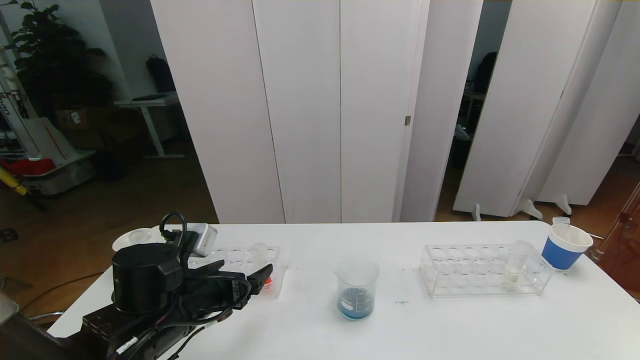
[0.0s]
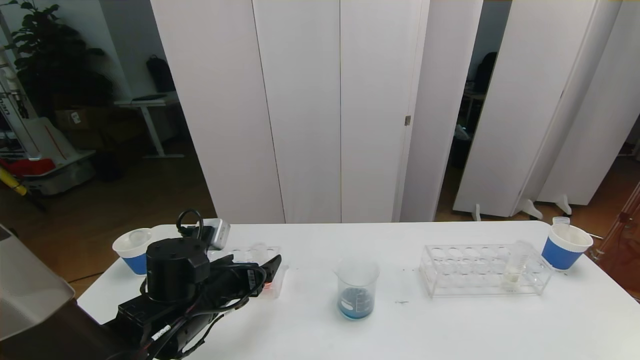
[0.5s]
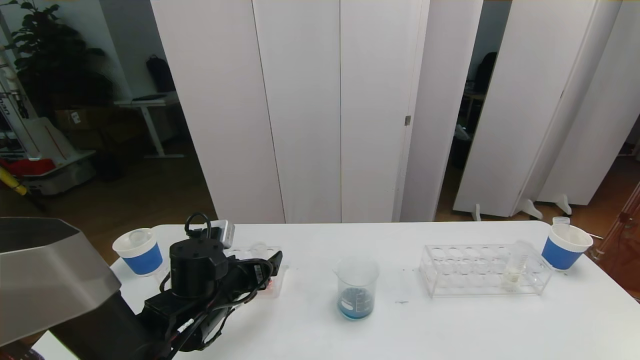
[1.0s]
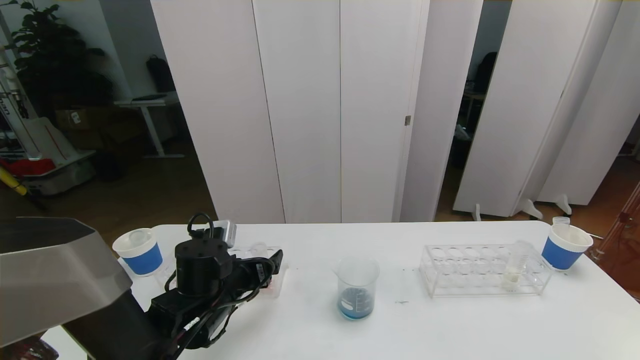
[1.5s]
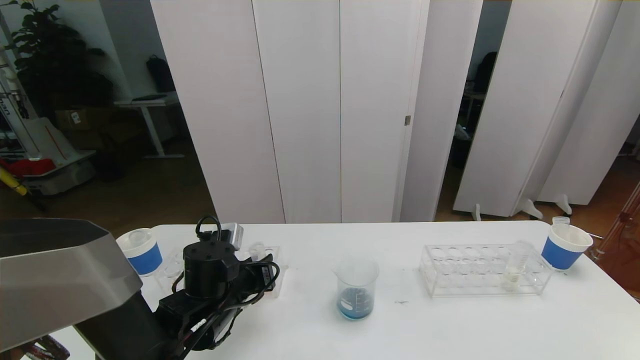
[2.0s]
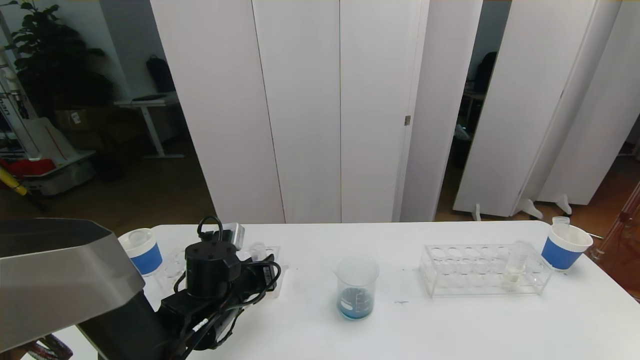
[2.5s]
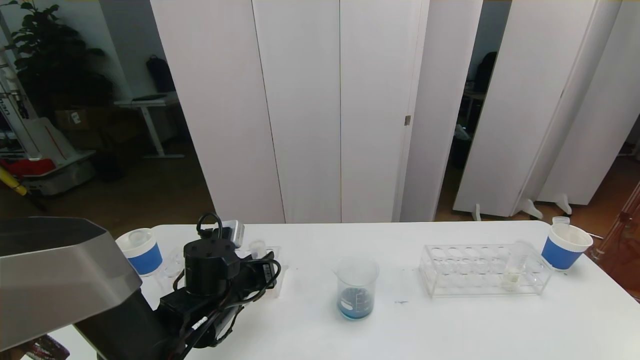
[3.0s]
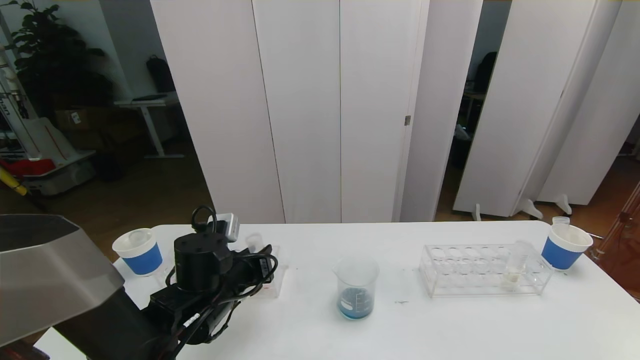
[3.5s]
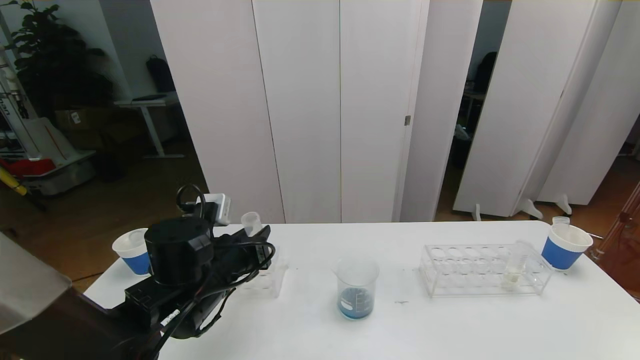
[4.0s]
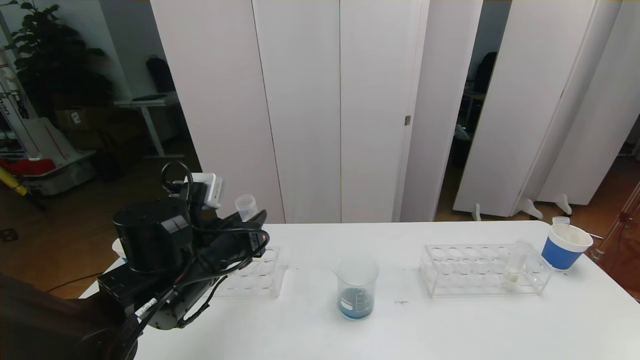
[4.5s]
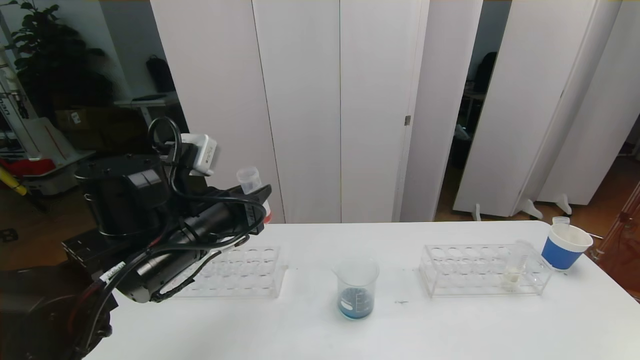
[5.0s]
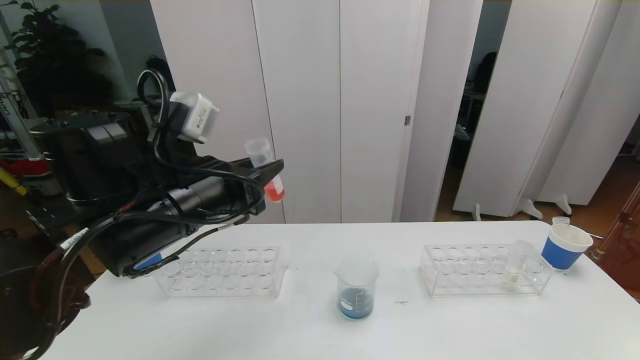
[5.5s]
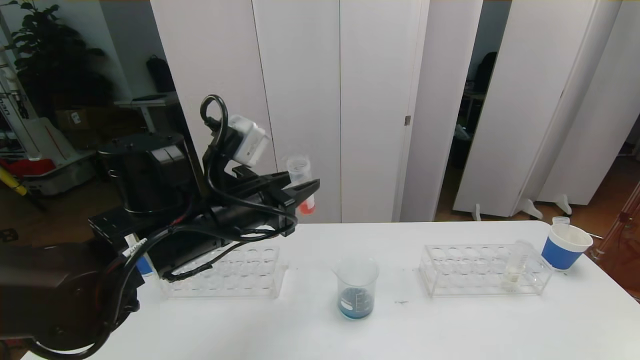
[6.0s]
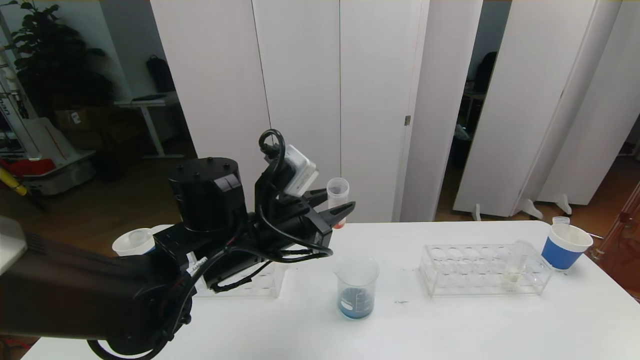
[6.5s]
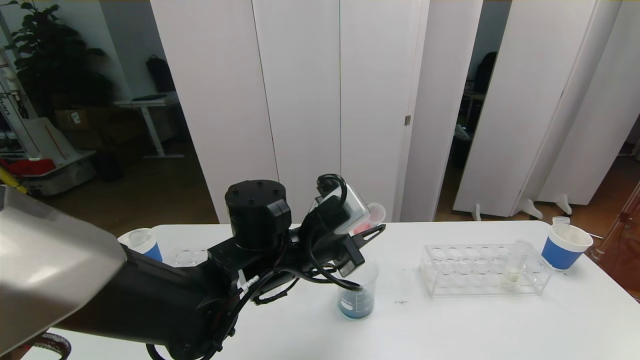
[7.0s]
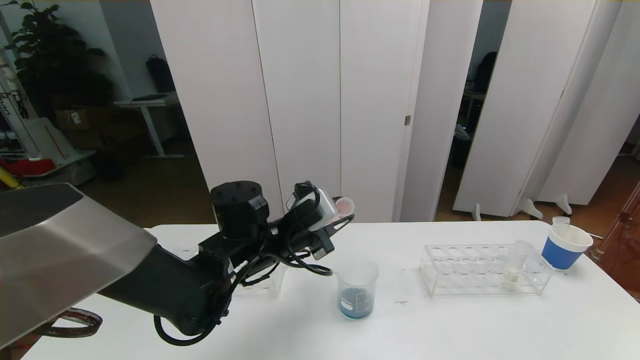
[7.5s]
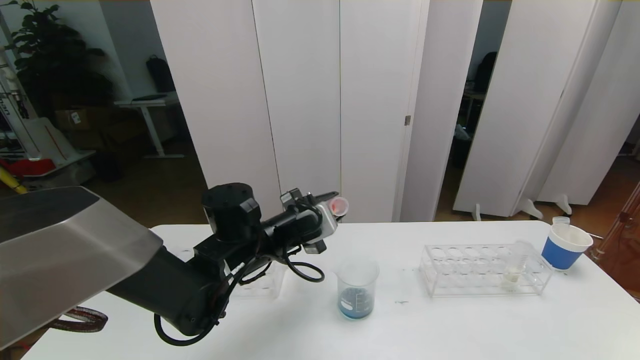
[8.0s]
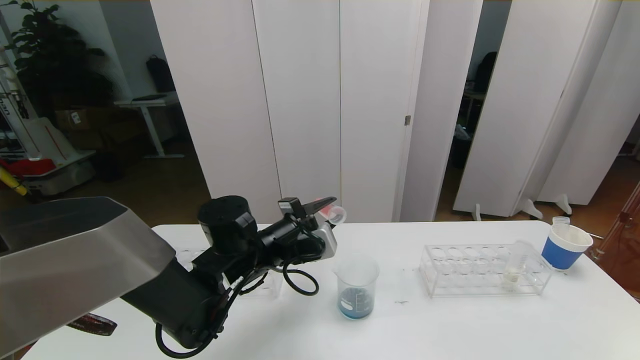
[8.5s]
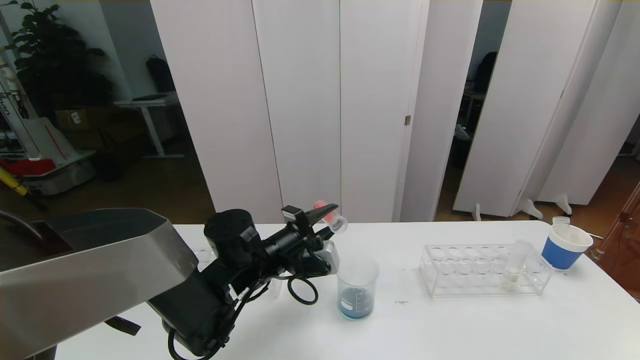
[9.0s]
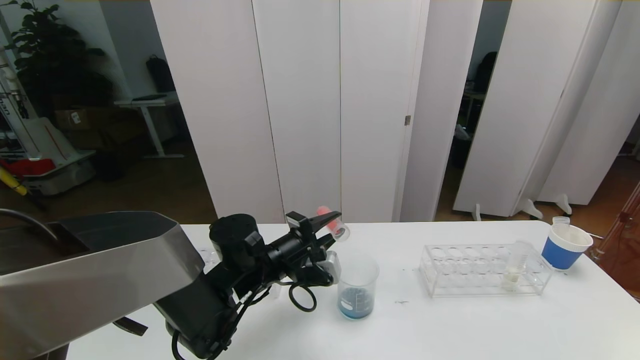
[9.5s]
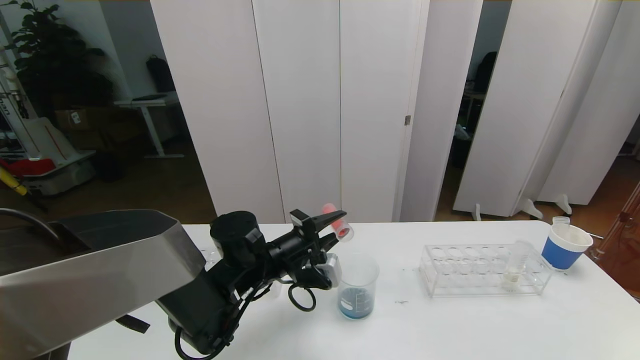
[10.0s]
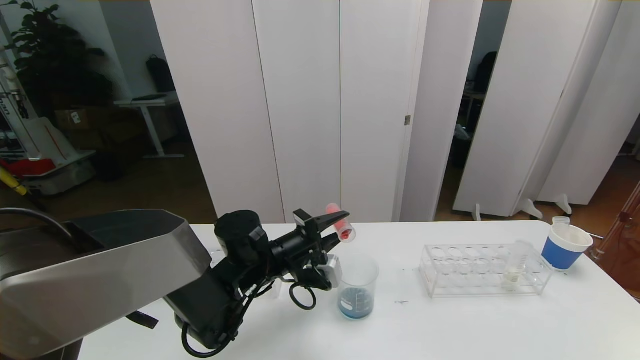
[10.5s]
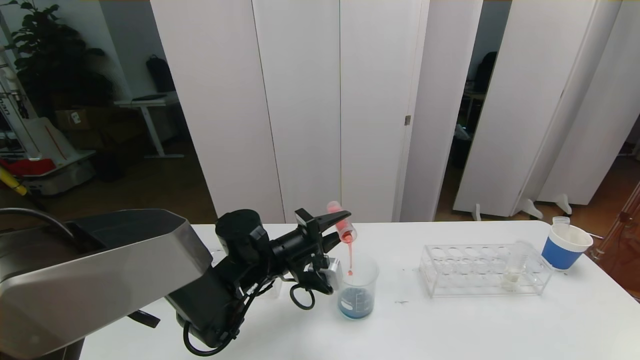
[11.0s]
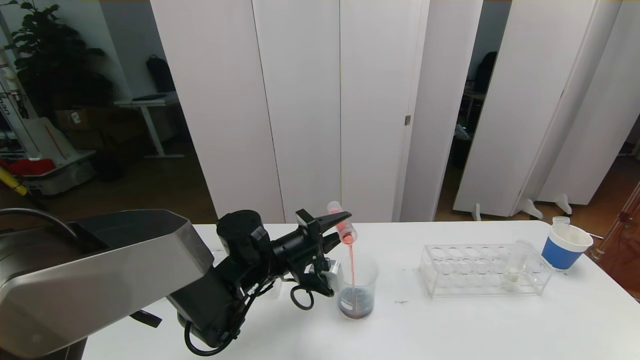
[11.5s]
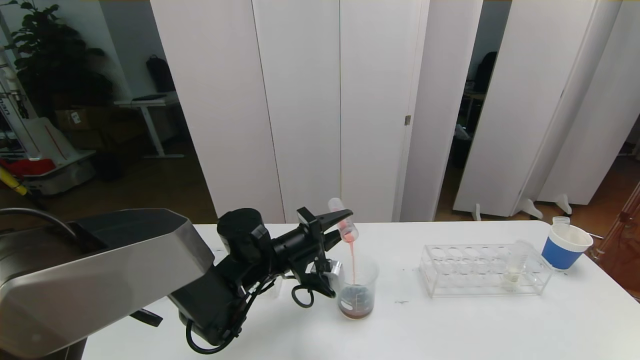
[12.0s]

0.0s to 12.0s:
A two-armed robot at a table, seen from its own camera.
Task of the whole recording: pick up the test tube with red pigment the test tube with blue pigment and the test tube with white pigment by grippers and pour them into the beaker.
0.0s to 2.0s: The left gripper changes place by some 5 cm, and closes its fingers.
2.0s to 4.0s: The left gripper moves upward, about 5 cm.
4.0s to 6.0s: The left gripper is displaced upward by about 10 cm.
6.0s to 8.0s: The left gripper travels downward and forward by roughly 10 cm.
10.0s to 12.0s: There are only small adjustments of the grippers.

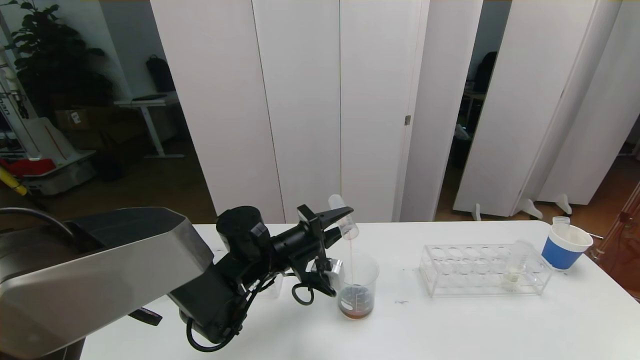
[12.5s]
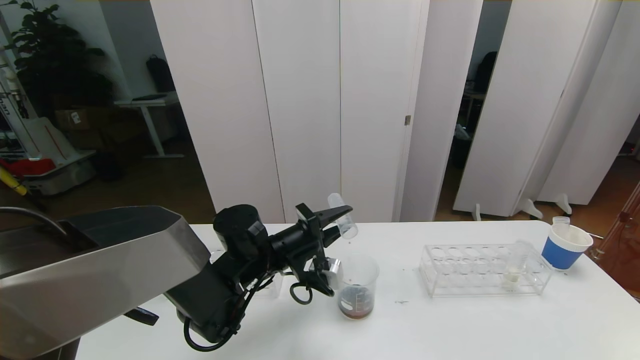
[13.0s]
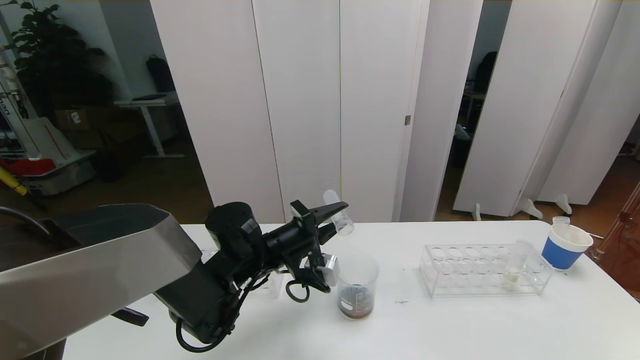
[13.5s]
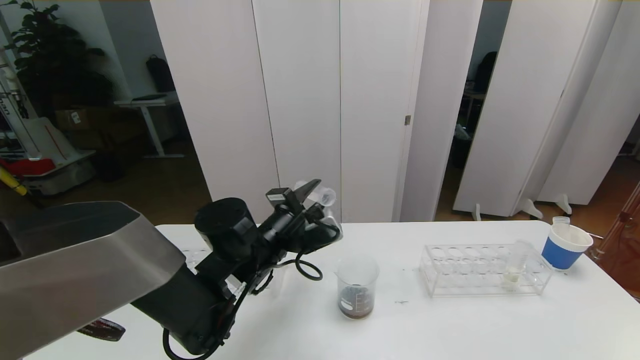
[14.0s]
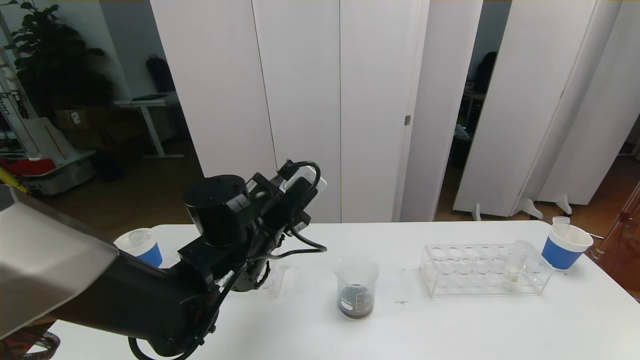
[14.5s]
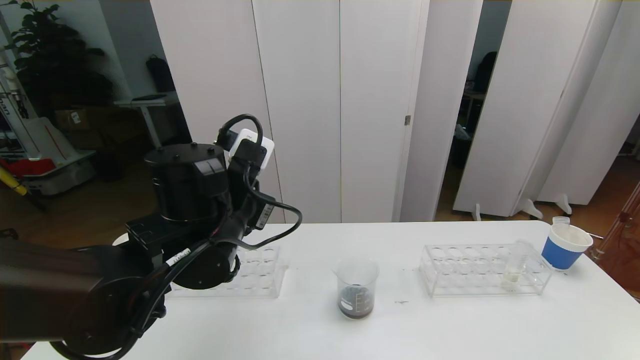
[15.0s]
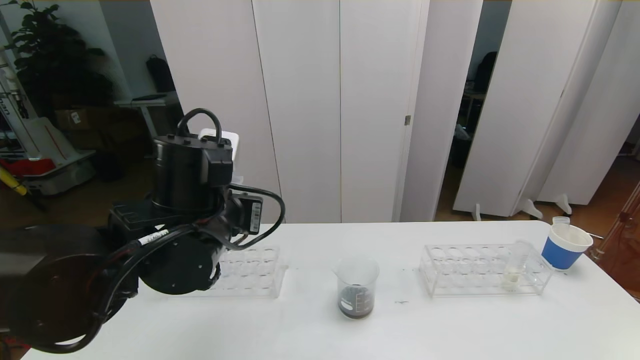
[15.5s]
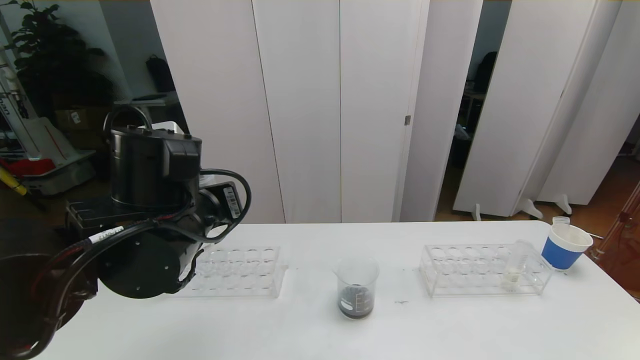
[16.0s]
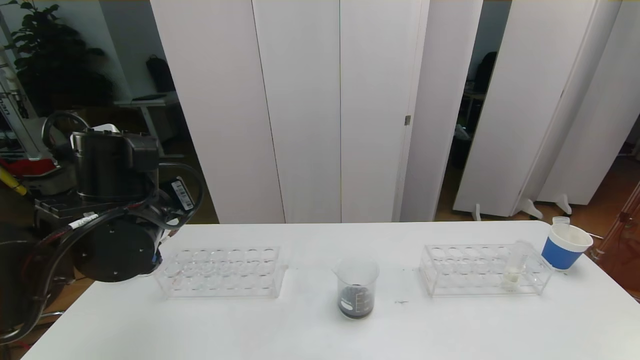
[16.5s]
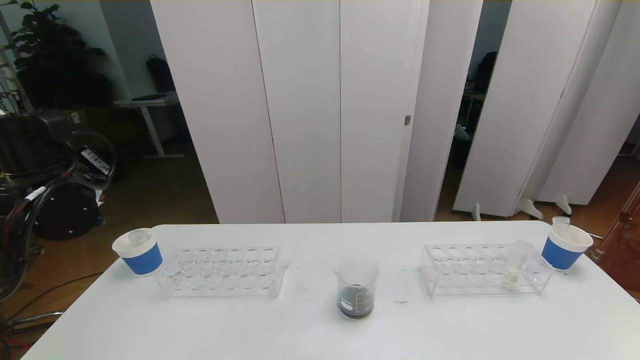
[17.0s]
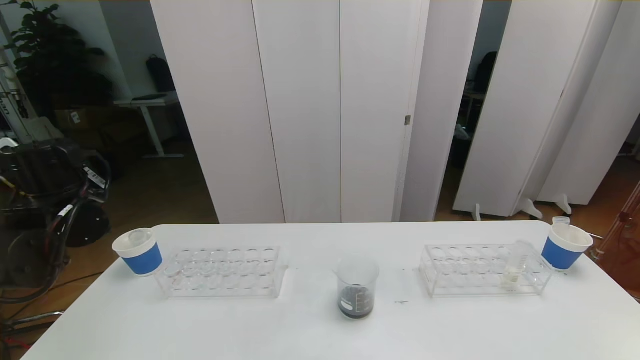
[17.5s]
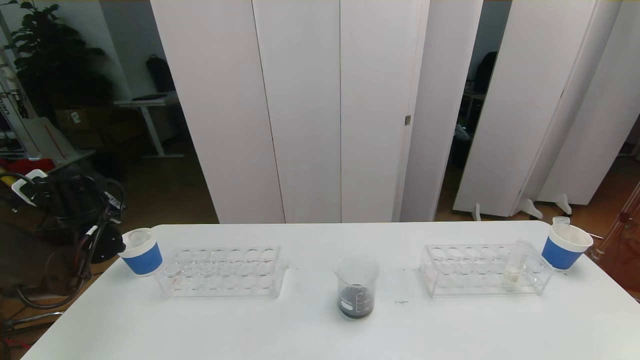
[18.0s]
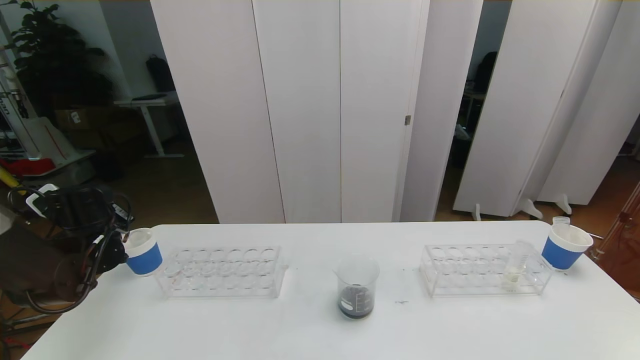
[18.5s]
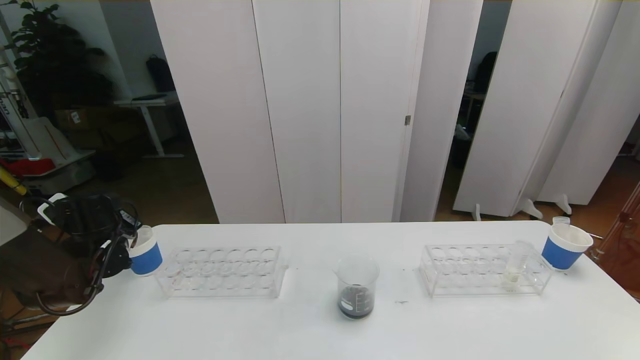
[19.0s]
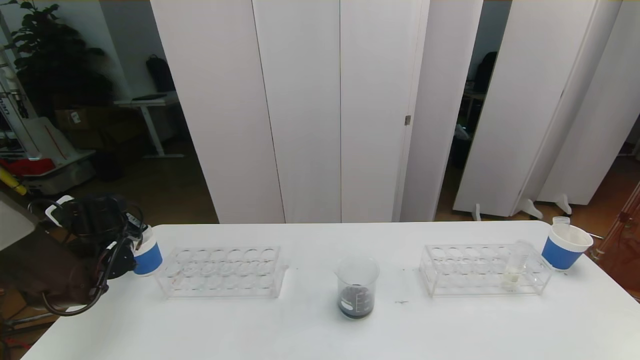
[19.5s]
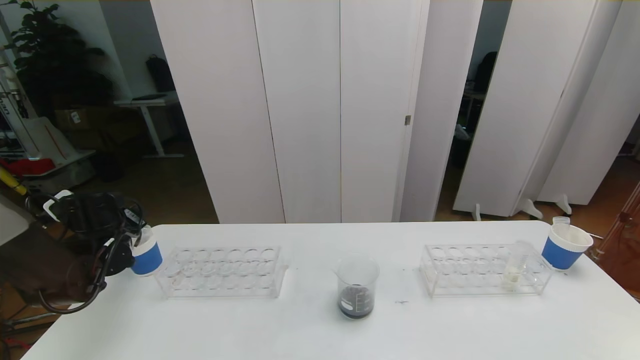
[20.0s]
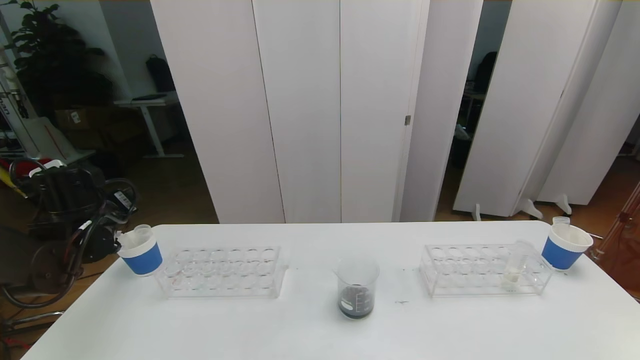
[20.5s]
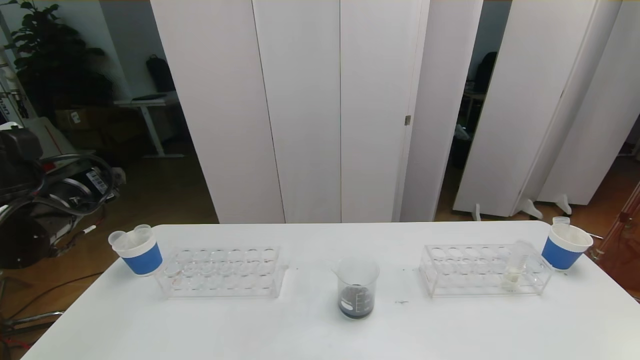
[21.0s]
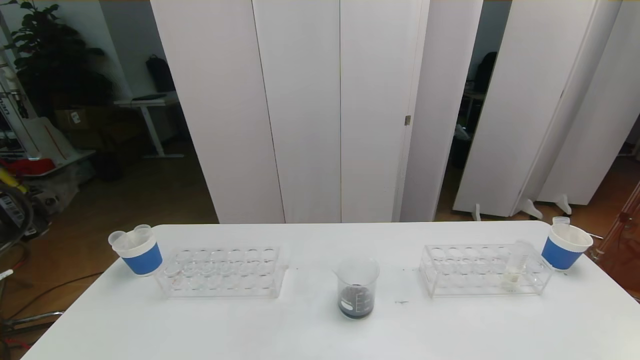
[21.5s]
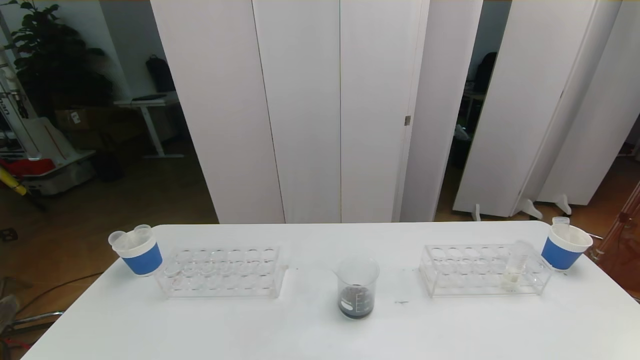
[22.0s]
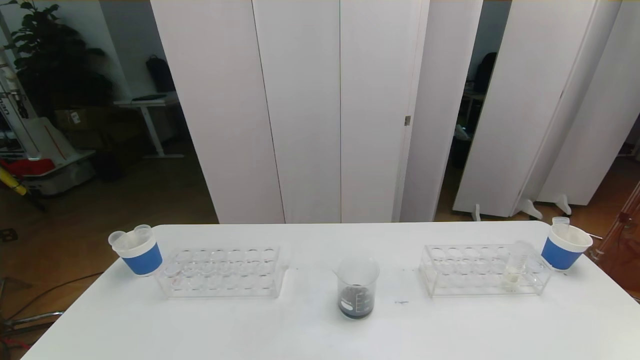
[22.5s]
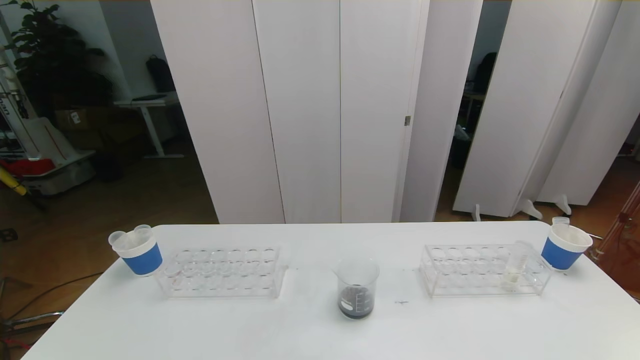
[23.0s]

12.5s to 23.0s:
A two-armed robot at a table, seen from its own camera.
Task of the whole recording: pick up the test tube with red pigment the test tube with blue pigment and the test tube with white pigment by grippers and pour them into the beaker.
12.5s to 14.5s: The left gripper shifts some 10 cm upward.
14.5s to 16.5s: The left gripper heads to the left and upward, covering about 10 cm.
16.5s to 19.0s: The left gripper travels to the left, downward and forward by approximately 20 cm.
19.0s to 21.0s: The left gripper is displaced upward, backward and to the right by some 15 cm, and opens.
21.0s to 23.0s: The left gripper goes roughly 30 cm backward and downward.
